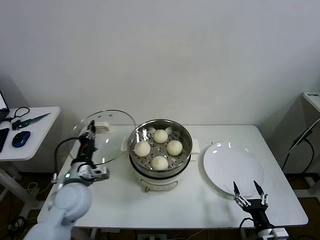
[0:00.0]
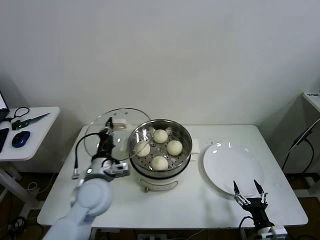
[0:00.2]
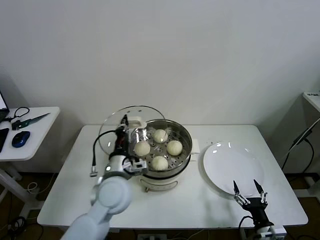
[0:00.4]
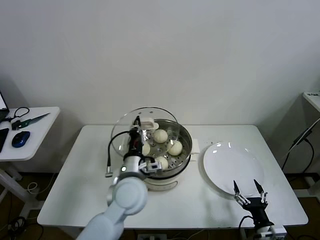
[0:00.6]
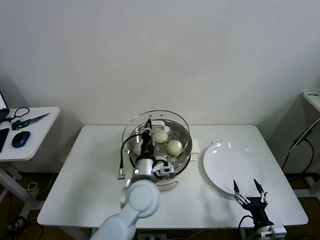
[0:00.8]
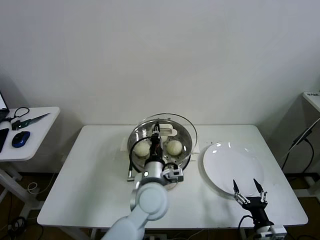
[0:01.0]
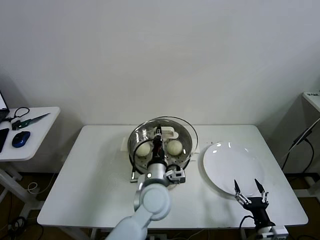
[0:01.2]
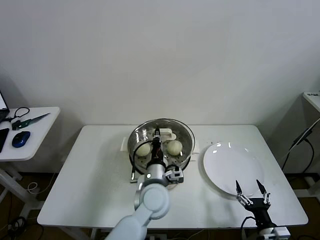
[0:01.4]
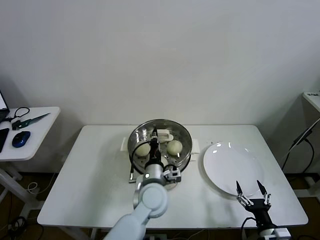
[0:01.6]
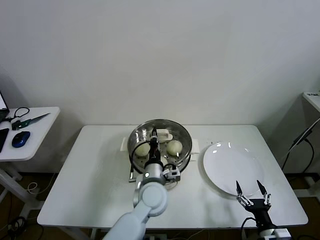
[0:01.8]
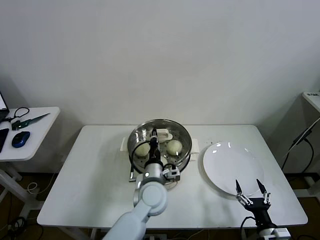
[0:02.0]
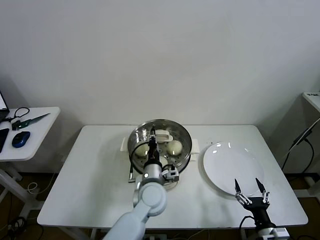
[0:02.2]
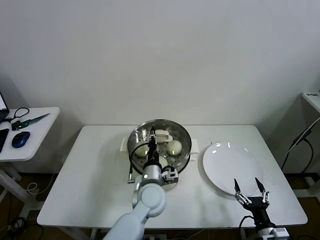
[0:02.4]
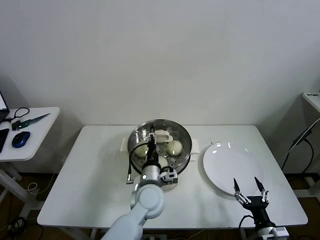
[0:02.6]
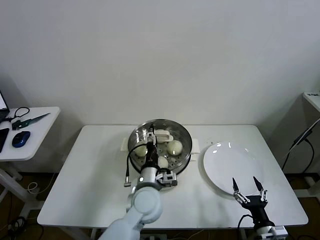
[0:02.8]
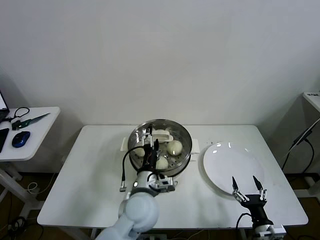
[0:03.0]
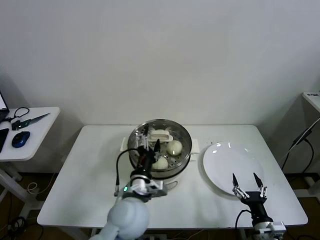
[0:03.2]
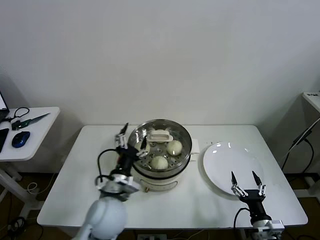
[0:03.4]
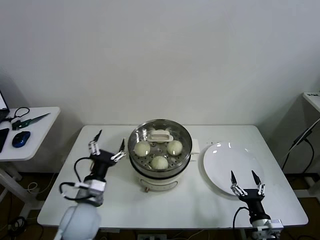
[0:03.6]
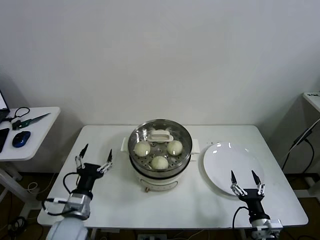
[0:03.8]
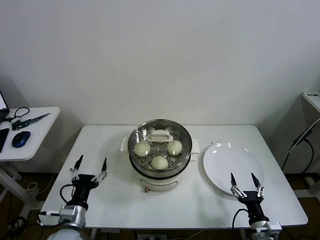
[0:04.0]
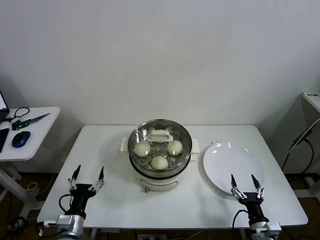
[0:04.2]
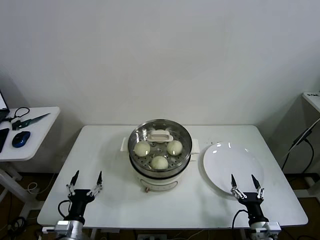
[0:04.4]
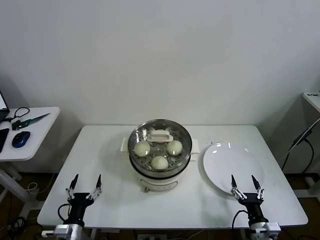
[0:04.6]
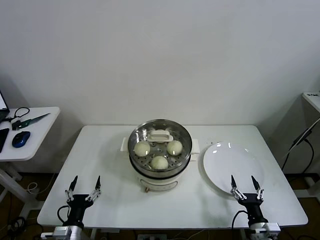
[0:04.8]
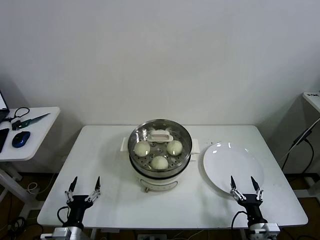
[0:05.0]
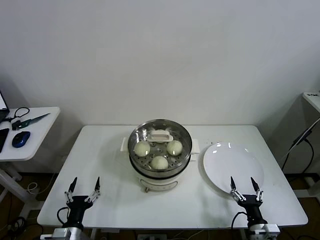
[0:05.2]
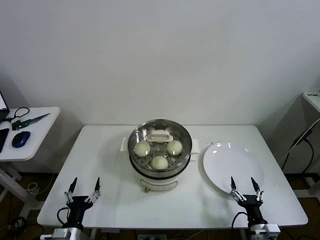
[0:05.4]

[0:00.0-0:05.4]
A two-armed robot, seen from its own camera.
Task of the whole recording: take steamed baozi put them in steamer then cover it.
Step, 0:00.0 to 0:02.8: Place the pot lid on the steamer with left gripper.
0:00.0 to 0:01.4: The left gripper moves to the right, about 25 cm.
0:01.4 to 0:02.8: The left gripper opens its fingers.
0:02.8 to 0:04.0: The left gripper is displaced to the left and backward by about 25 cm.
0:04.0 to 0:05.4: The left gripper moves downward and backward, approximately 10 cm.

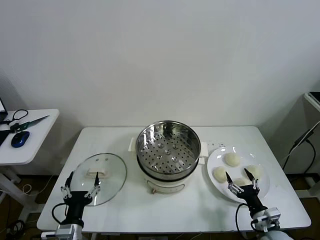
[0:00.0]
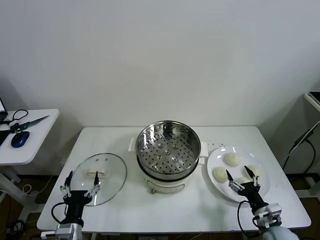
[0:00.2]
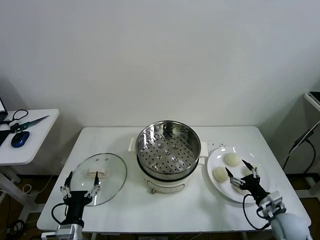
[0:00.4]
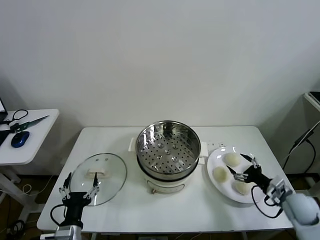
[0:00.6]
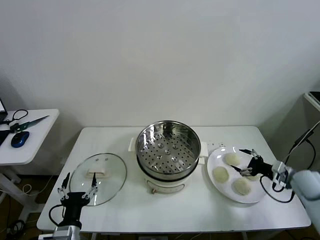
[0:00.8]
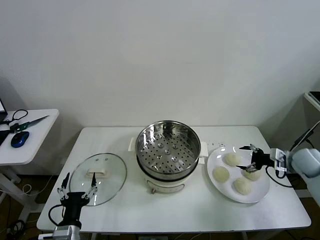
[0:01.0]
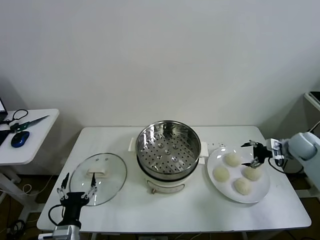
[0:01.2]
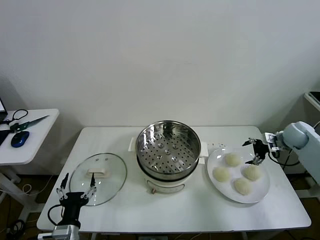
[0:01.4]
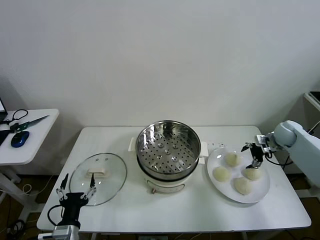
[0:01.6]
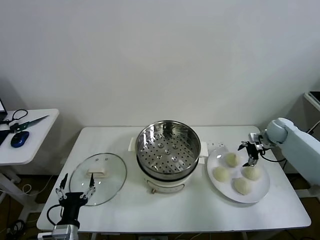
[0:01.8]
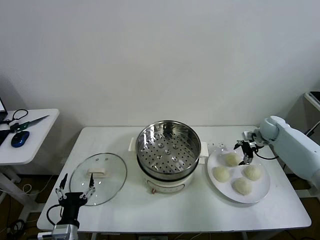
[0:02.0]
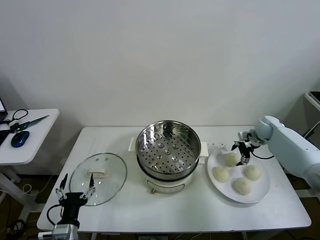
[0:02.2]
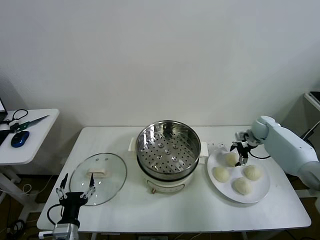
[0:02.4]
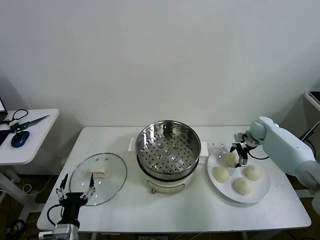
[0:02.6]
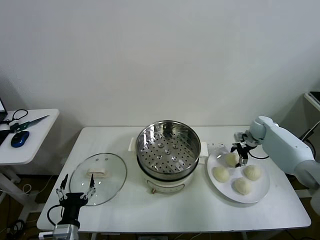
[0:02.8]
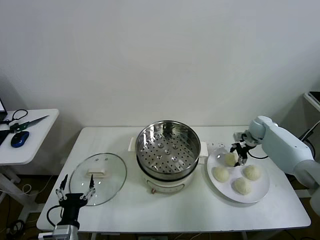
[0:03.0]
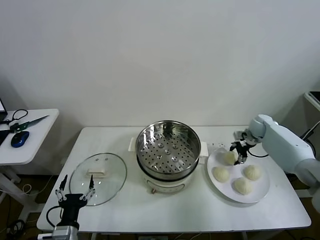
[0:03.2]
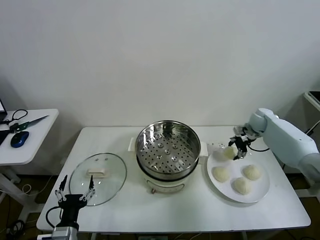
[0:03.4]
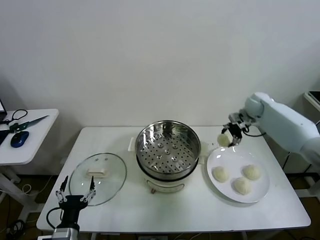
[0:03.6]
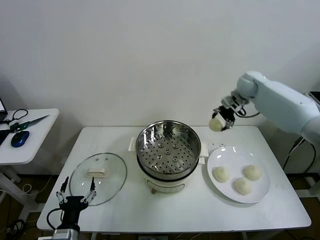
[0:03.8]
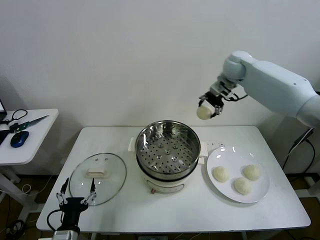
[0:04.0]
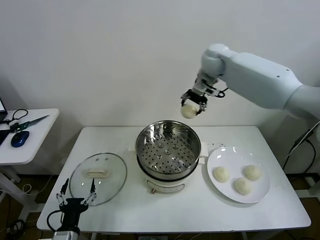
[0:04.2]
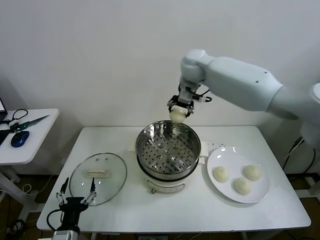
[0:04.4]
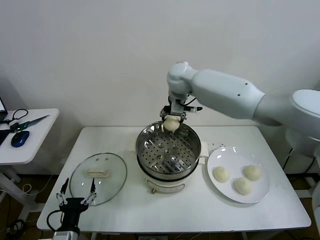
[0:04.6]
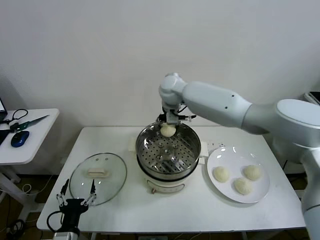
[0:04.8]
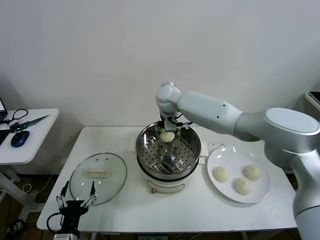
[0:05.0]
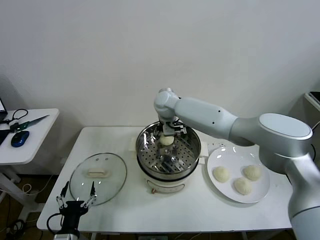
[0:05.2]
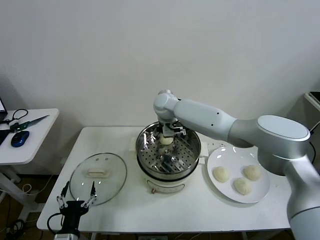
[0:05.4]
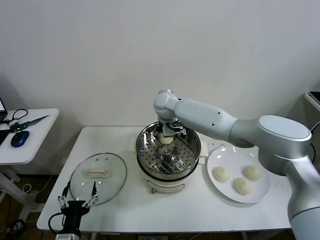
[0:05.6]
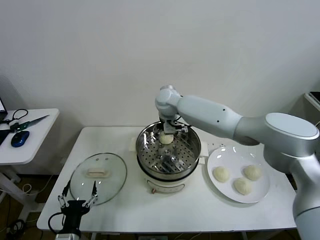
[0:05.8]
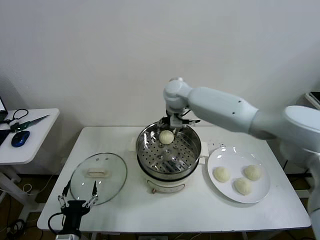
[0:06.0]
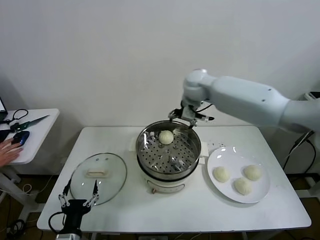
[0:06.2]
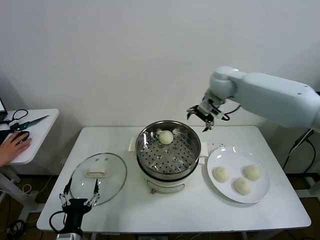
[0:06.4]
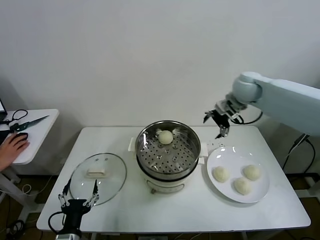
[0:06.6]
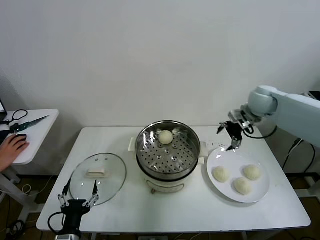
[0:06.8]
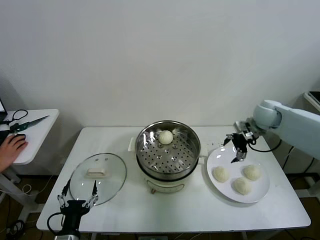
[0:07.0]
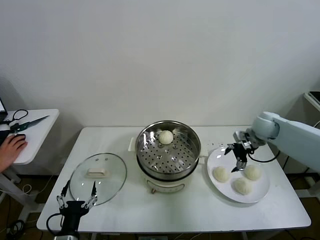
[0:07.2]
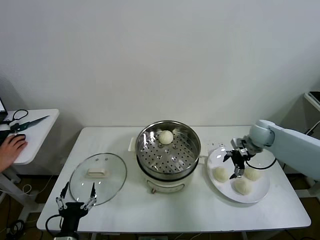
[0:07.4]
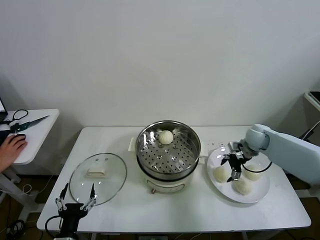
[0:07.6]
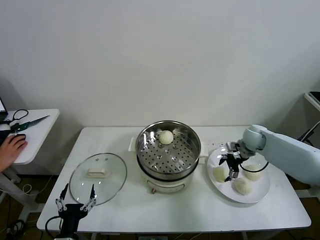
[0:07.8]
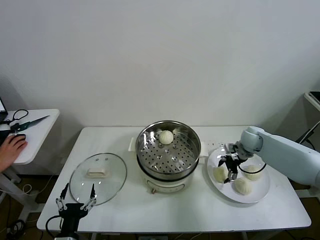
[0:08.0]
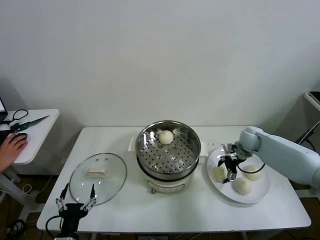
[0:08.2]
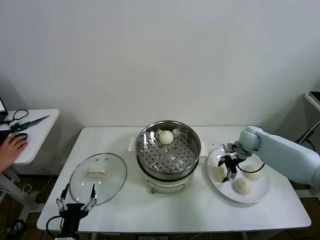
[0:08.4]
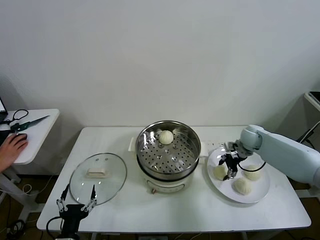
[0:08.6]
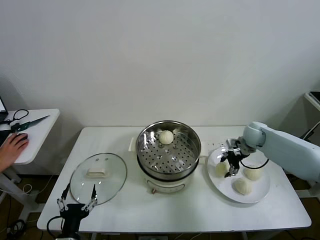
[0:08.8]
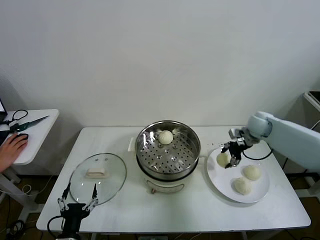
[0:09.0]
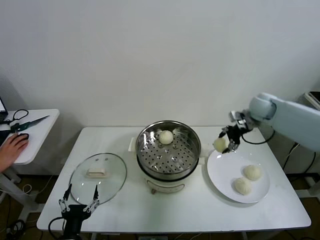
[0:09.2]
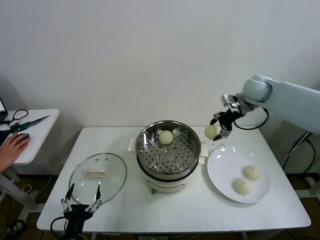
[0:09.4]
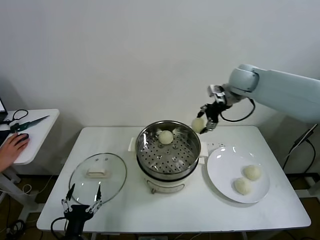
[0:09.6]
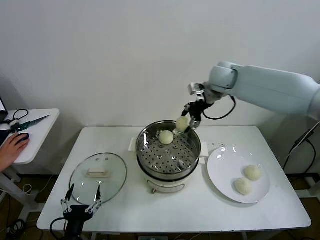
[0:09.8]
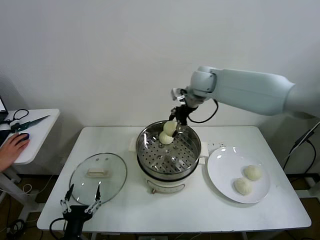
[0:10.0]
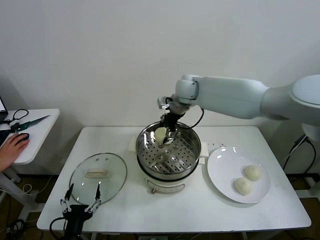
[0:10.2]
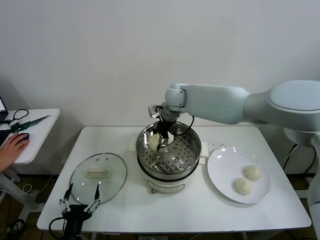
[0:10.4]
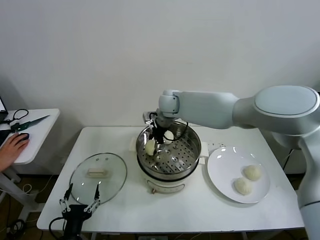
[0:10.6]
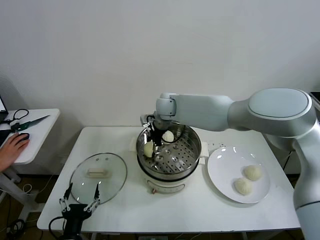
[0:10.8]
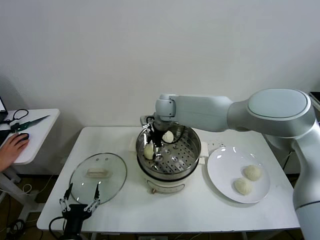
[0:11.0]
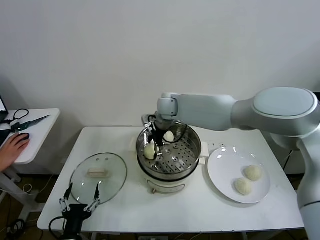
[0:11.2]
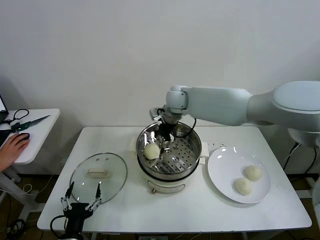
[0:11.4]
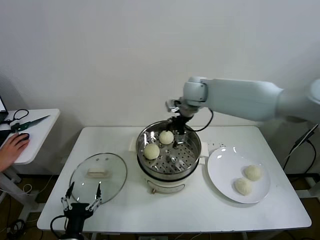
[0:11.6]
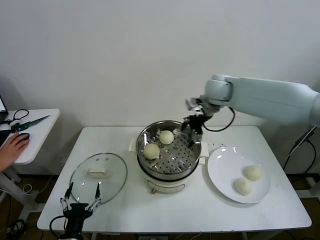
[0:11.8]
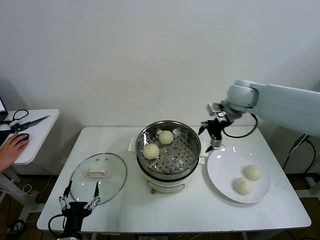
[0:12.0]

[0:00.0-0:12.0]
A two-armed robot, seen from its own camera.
Task of the whole recording: take steamed baozi put them in steamer then cover it.
Step, 0:00.0 to 0:03.0: Grasp the baozi in the plate with right gripper.
Step, 0:03.2 to 0:05.6: Place the baozi on the steamer with right gripper.
Step, 0:05.8 to 0:08.4: Grasp the baozi in the plate with right gripper.
Step, 0:08.6 to 0:11.2: Place the baozi on the steamer with right gripper.
0:01.6 to 0:03.0: The right gripper heads forward and to the left, covering roughly 5 cm.
0:03.0 to 0:04.4: The right gripper goes roughly 40 cm to the left and upward.
0:06.0 to 0:07.6: The right gripper moves to the right and downward, approximately 35 cm.
0:07.6 to 0:09.0: The right gripper shifts approximately 10 cm upward.
0:09.0 to 0:10.4: The right gripper moves to the left, roughly 30 cm.
0:10.4 to 0:12.0: The right gripper shifts approximately 25 cm to the right.

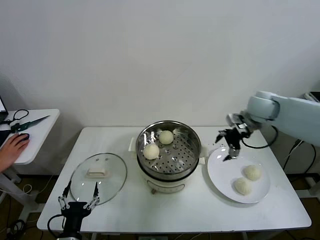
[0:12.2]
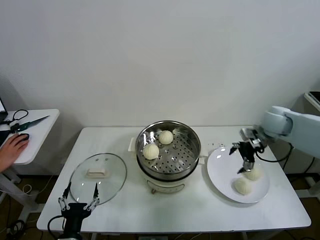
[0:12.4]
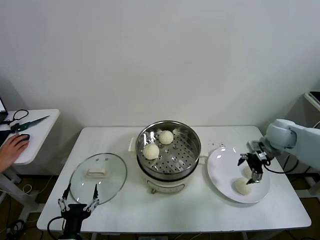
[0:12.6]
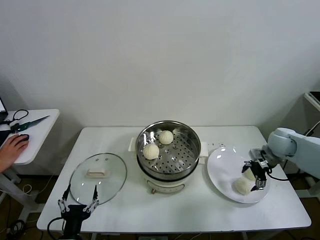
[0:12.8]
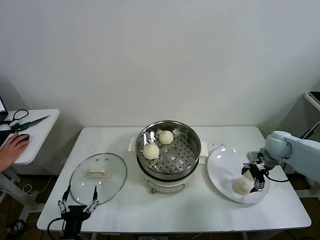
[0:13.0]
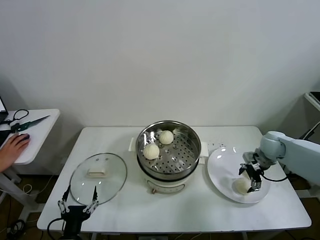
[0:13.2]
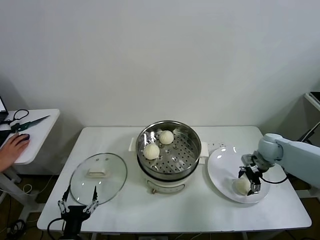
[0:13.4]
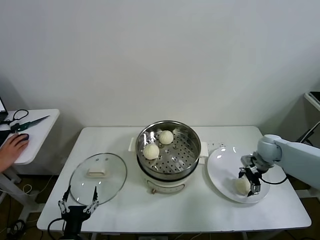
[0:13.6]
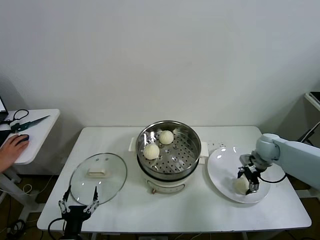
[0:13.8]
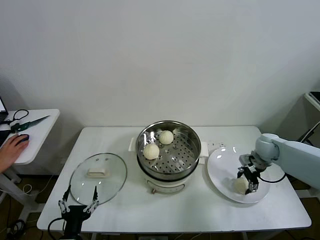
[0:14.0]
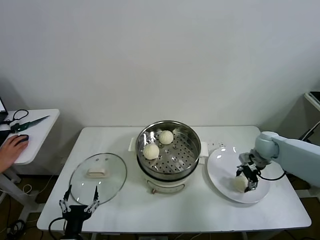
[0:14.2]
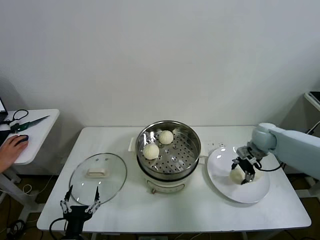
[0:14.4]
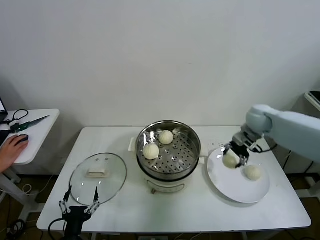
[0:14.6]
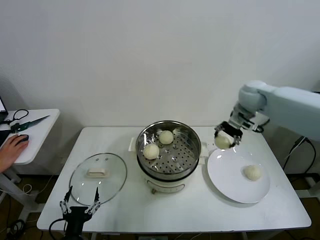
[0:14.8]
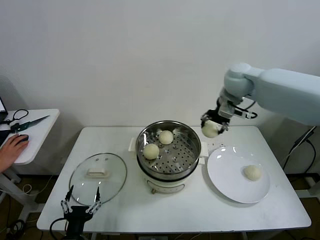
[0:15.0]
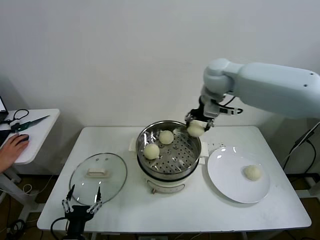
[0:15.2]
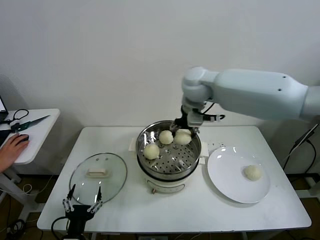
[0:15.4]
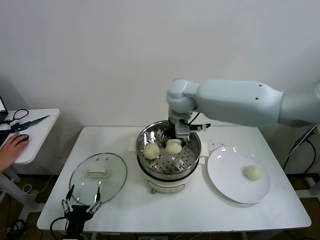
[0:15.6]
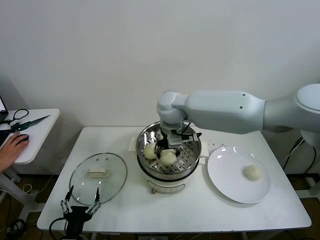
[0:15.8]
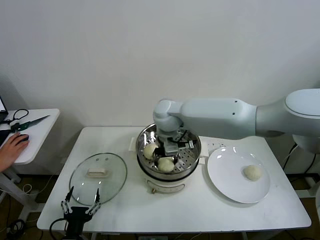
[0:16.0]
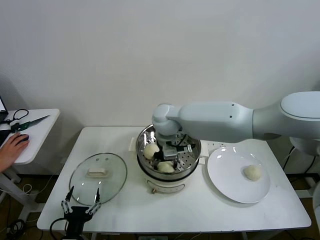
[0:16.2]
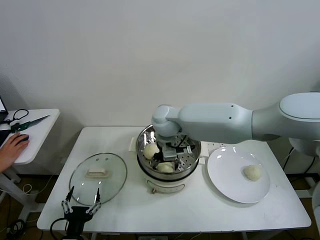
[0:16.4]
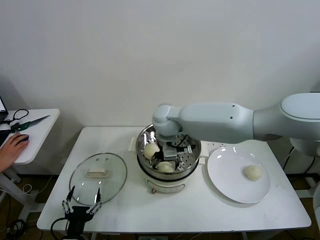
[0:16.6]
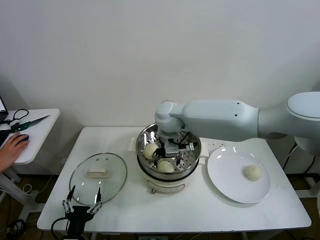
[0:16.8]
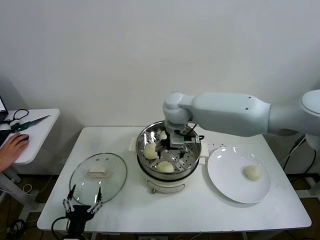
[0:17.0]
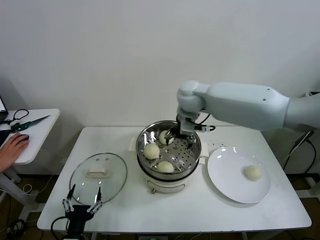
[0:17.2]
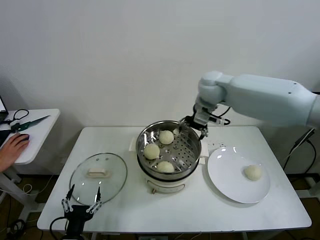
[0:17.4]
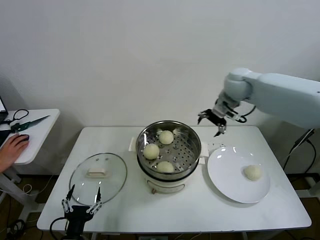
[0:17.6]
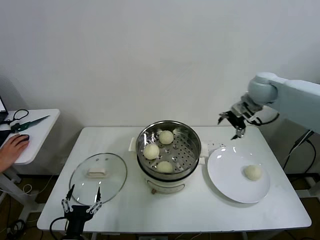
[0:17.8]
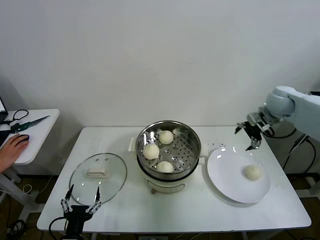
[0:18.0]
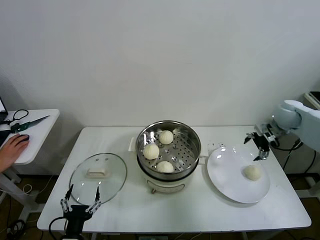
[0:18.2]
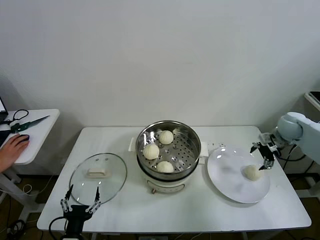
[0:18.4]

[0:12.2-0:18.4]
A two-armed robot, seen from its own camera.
Task of the whole recording: take steamed baozi put them in steamer then cover it.
Step, 0:12.2 to 0:14.0: Grasp the baozi in the plate with right gripper.
Step, 0:14.2 to 0:16.4: Place the baozi on the steamer with right gripper.
0:12.2 to 0:13.8: The right gripper heads downward, covering some 15 cm.
0:13.8 to 0:15.4: The right gripper heads to the left and upward, covering about 40 cm.
0:15.4 to 0:16.8: The right gripper moves downward and to the left, approximately 10 cm.
0:16.8 to 0:18.4: The right gripper shifts roughly 40 cm to the right.
